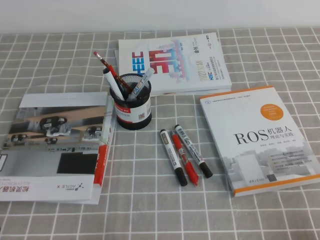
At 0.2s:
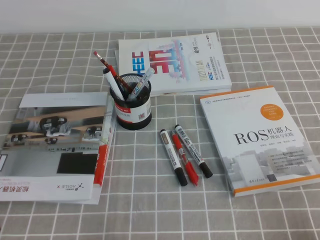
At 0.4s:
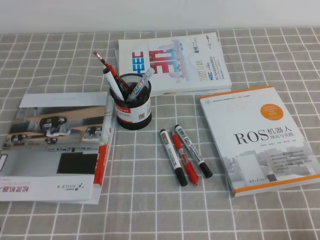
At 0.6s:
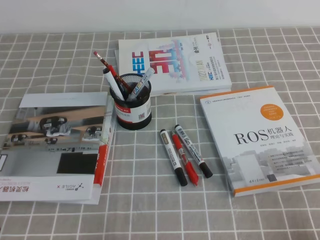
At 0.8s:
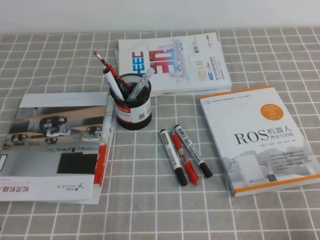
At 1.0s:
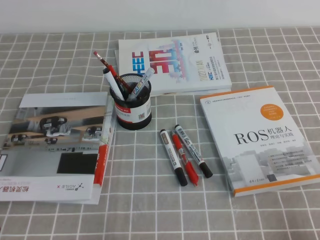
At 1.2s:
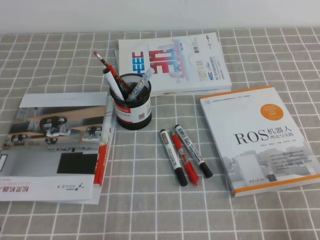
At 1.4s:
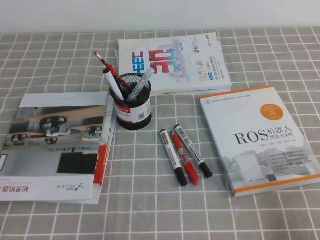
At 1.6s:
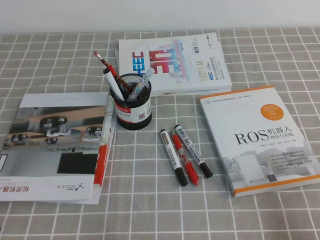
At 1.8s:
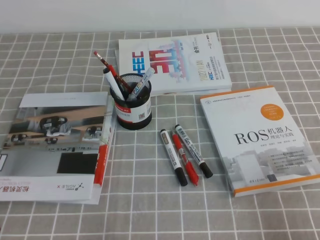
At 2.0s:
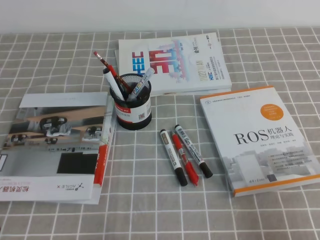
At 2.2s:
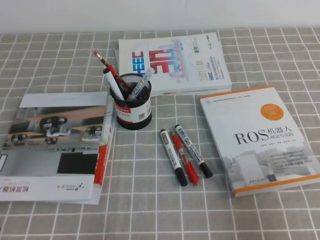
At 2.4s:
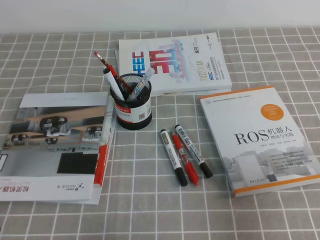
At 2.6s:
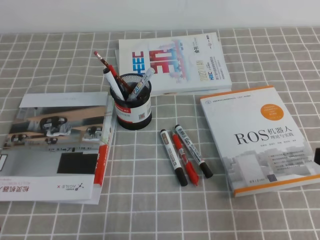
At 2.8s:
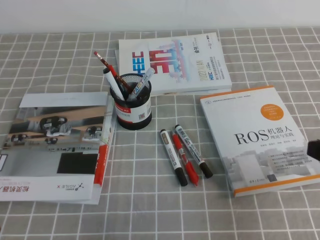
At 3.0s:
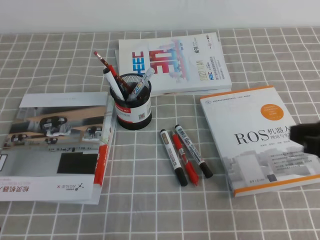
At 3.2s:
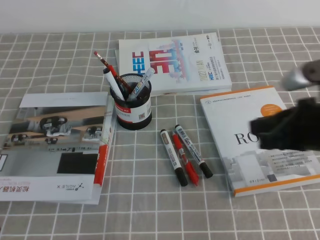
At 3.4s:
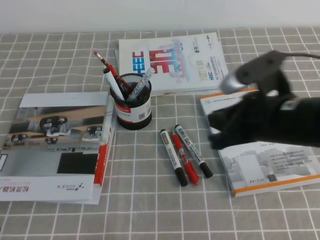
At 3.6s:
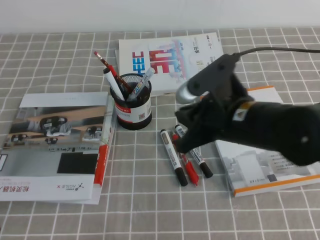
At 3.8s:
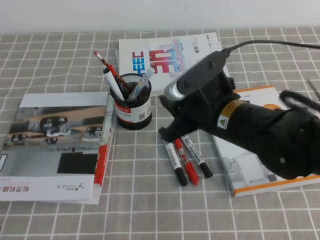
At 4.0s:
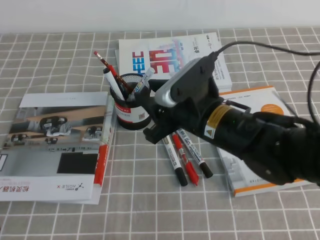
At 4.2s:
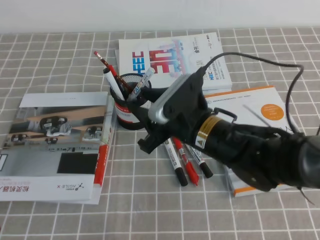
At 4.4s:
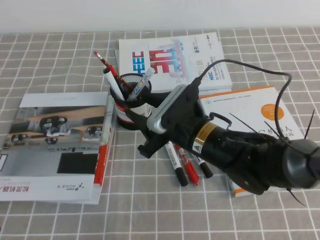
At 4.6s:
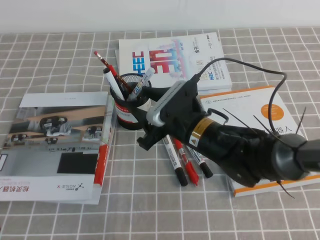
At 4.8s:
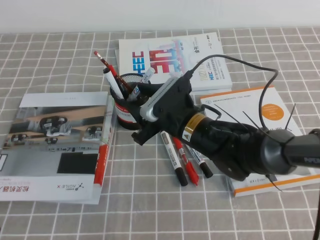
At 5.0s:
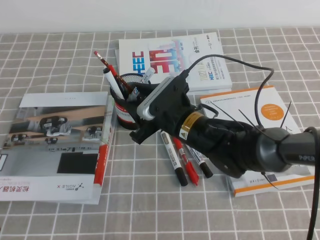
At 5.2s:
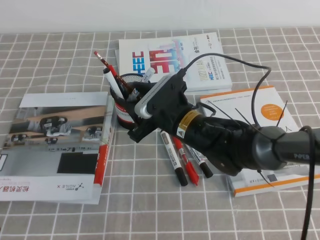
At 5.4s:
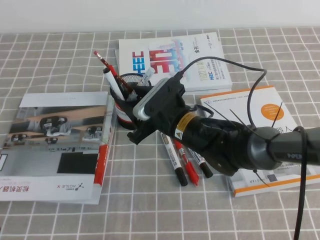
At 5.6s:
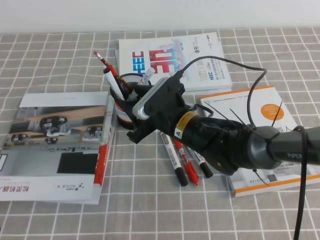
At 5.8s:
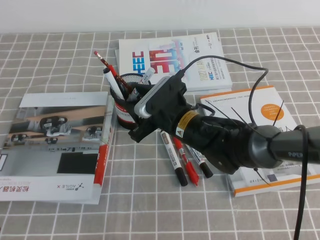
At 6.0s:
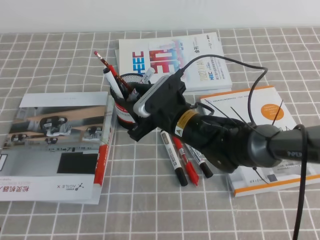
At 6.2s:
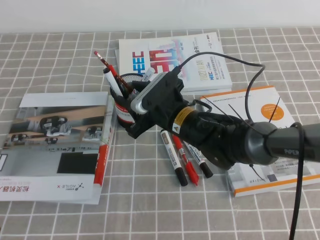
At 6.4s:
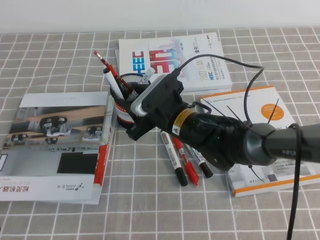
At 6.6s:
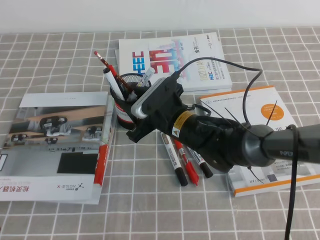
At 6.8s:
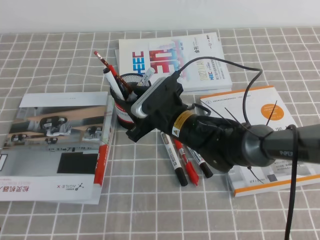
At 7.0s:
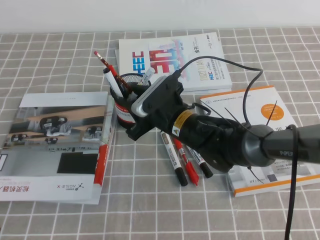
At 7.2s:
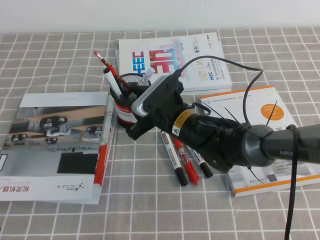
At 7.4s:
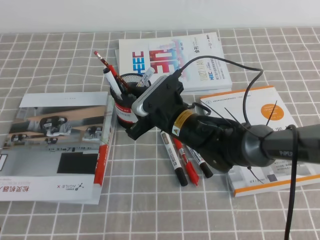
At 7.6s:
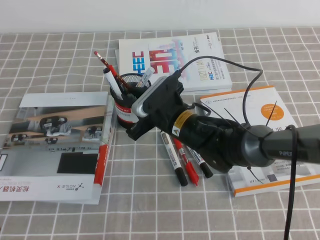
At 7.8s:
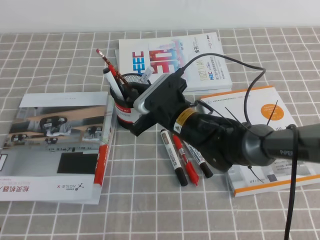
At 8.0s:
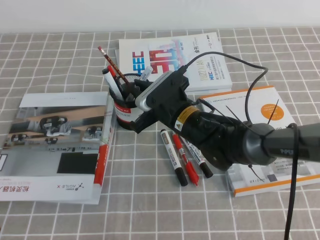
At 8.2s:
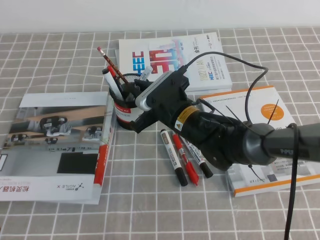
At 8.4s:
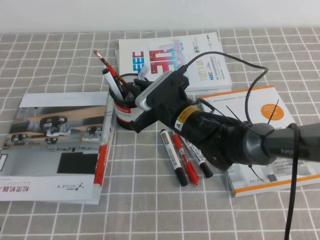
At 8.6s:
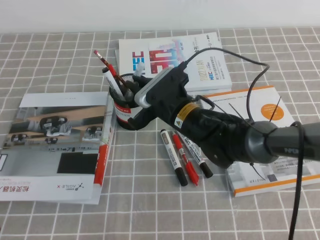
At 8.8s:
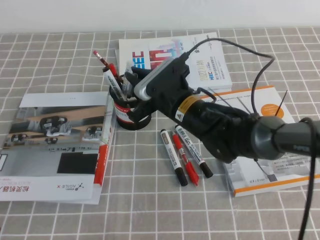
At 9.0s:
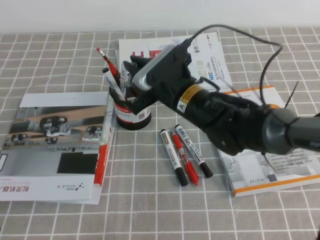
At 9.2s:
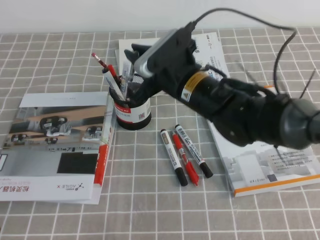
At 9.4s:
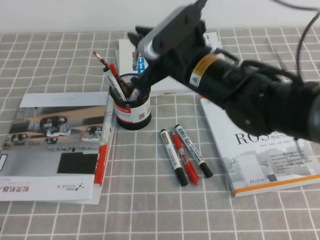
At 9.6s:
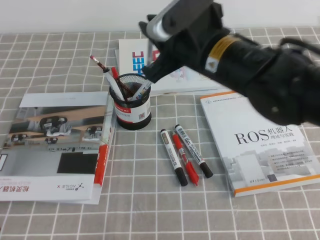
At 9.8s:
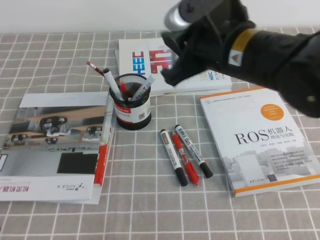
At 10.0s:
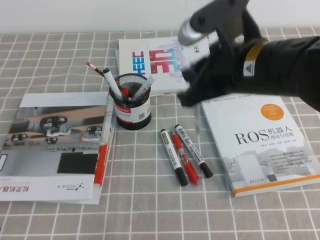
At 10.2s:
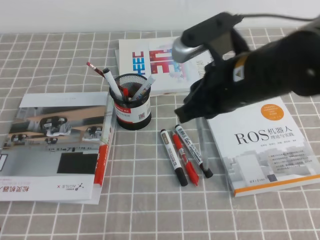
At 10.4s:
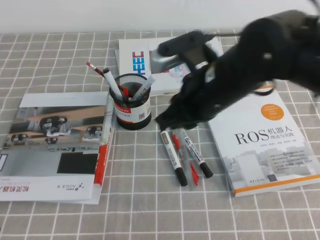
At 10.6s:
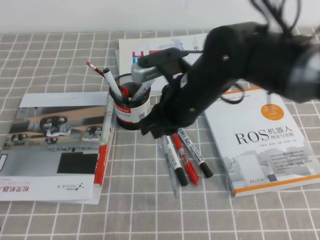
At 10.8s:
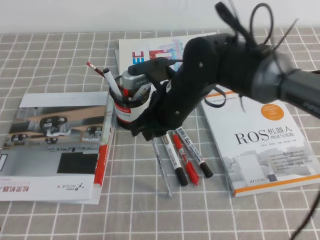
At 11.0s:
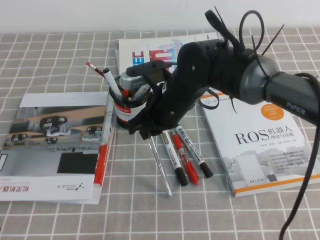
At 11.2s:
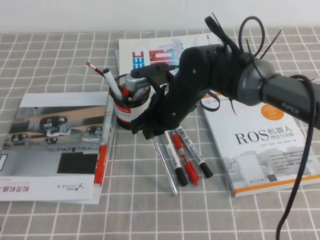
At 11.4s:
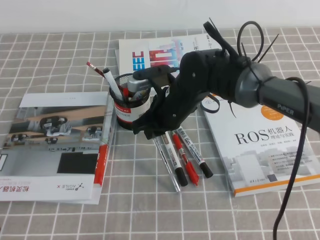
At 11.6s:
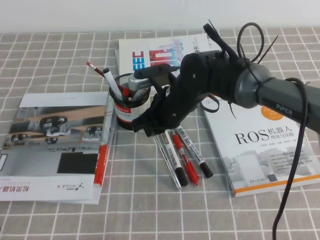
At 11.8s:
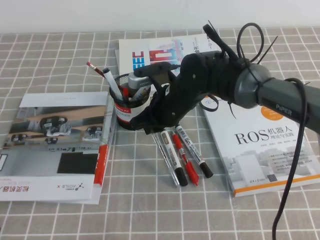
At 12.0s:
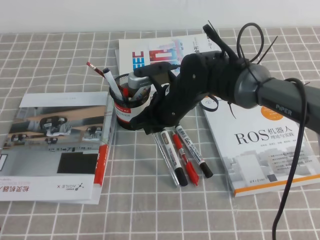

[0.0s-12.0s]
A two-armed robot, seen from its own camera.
1.6s to 3.0s: The right gripper travels forward and upward by about 15 cm.
3.0s to 4.4s: The right gripper moves to the left and forward, approximately 25 cm, and opens.
4.4s to 6.0s: The right gripper moves forward, some 5 cm.
6.0s to 7.6s: The right gripper closes up.
7.6s to 9.0s: The right gripper goes some 5 cm upward.
9.0s to 10.4s: The right gripper travels upward, backward and to the right by roughly 10 cm.
10.4s to 12.0s: The right gripper is displaced downward, forward and to the left by approximately 15 cm.

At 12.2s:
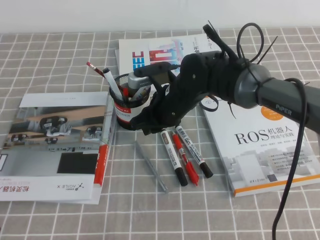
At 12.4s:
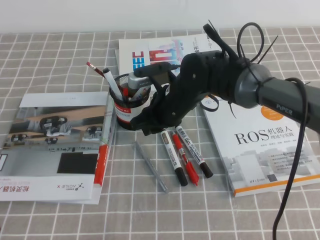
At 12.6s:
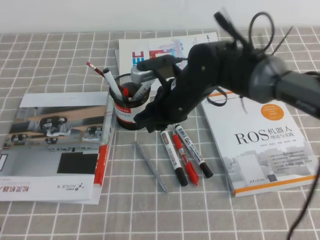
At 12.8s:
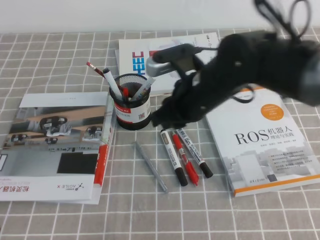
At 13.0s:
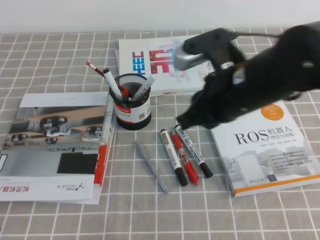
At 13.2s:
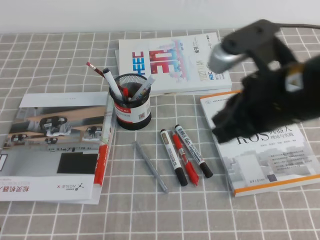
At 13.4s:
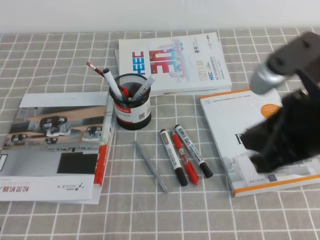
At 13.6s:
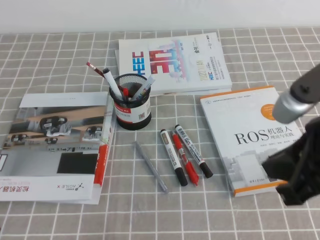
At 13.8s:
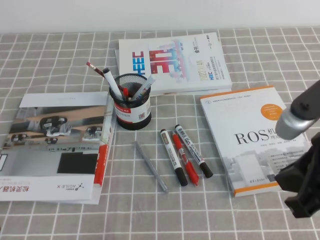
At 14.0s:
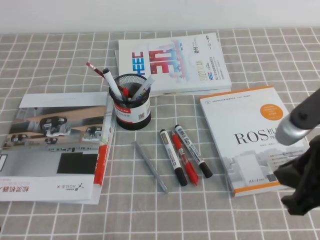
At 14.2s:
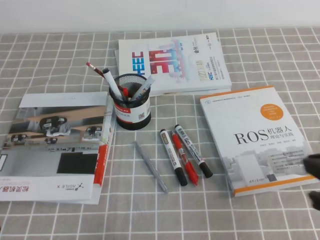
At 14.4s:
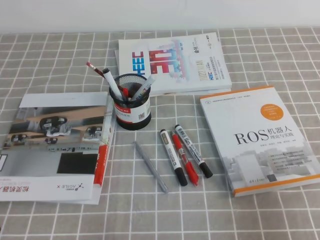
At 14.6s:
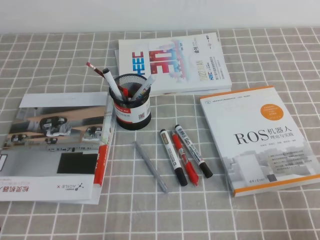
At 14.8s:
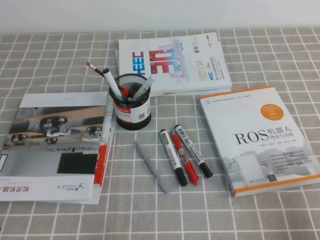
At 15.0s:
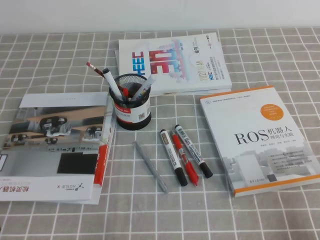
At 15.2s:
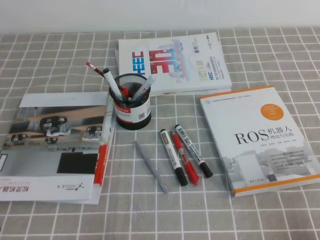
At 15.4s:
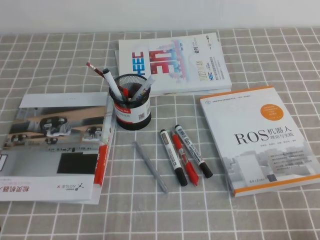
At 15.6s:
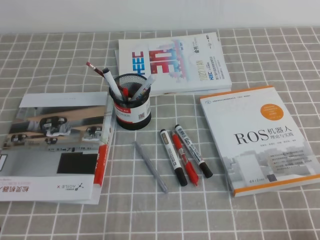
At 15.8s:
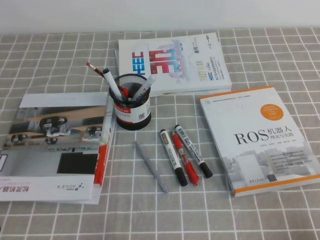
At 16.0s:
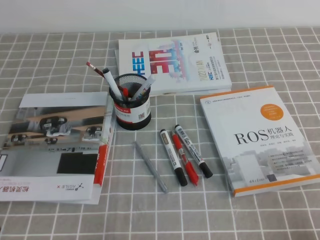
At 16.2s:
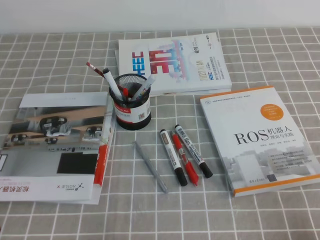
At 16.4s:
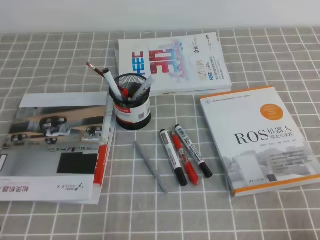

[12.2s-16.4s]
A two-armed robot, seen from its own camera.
Step, 12.2s to 16.4s: Pick up the pen from the pen holder.
12.2s to 13.6s: The right gripper goes some 30 cm backward, to the right and upward, and closes up.
13.6s to 15.0s: The right gripper moves downward, to the right and backward, roughly 25 cm.
